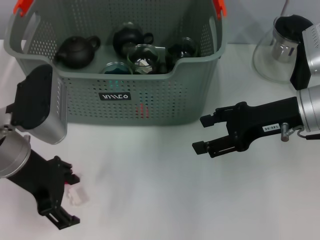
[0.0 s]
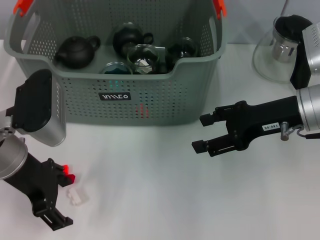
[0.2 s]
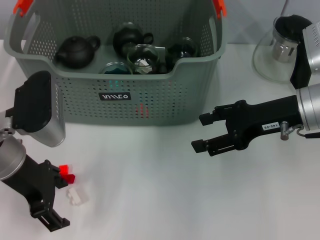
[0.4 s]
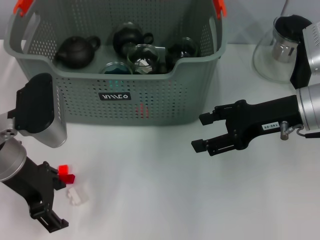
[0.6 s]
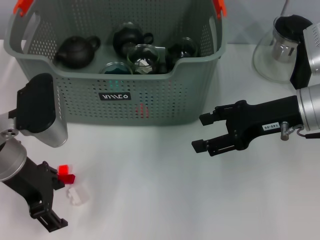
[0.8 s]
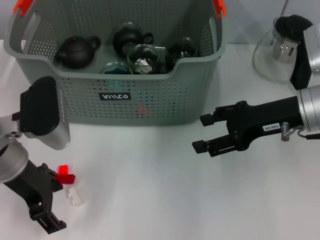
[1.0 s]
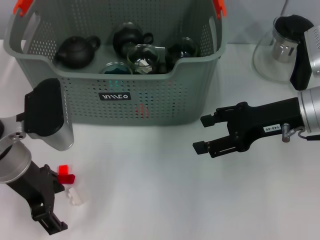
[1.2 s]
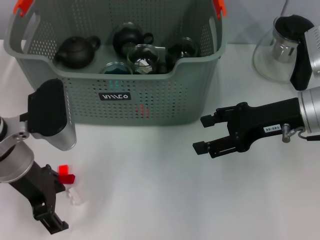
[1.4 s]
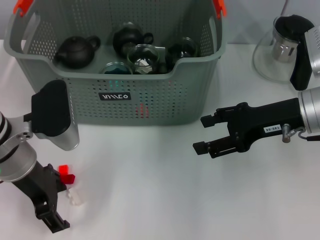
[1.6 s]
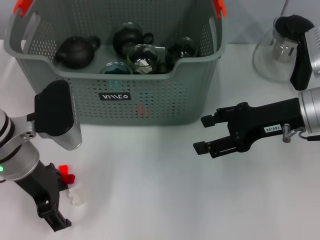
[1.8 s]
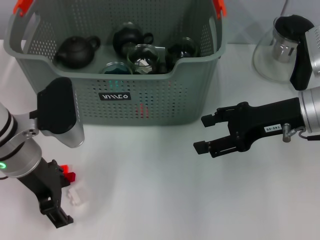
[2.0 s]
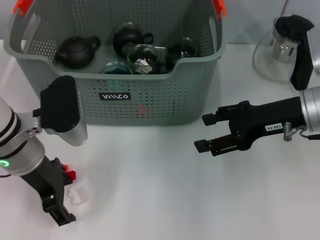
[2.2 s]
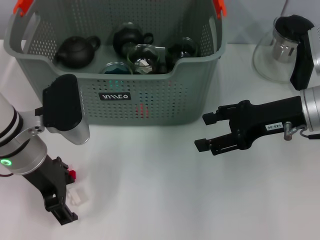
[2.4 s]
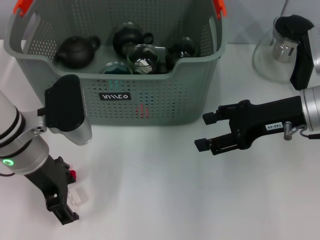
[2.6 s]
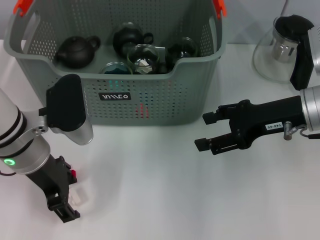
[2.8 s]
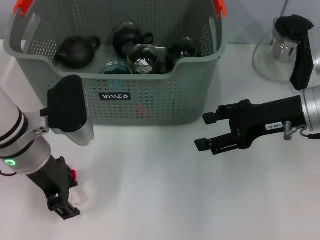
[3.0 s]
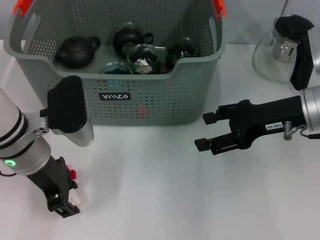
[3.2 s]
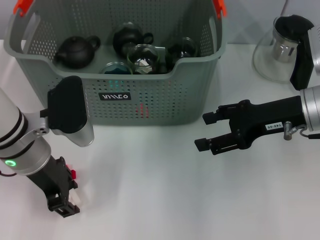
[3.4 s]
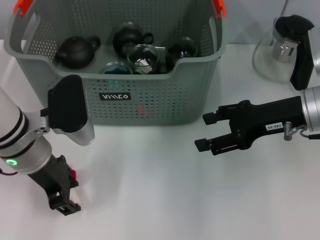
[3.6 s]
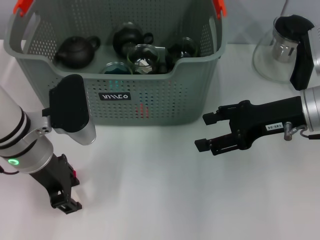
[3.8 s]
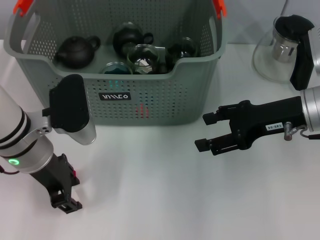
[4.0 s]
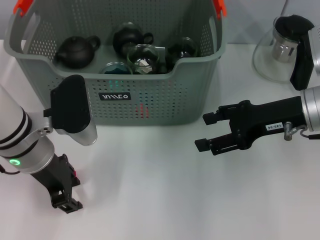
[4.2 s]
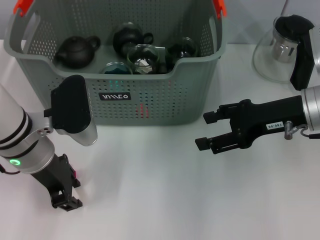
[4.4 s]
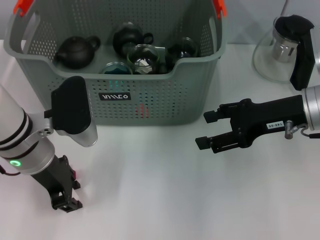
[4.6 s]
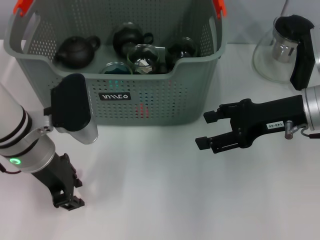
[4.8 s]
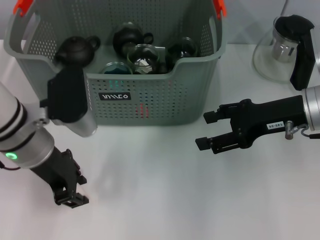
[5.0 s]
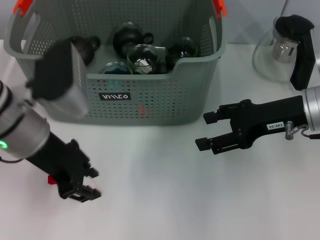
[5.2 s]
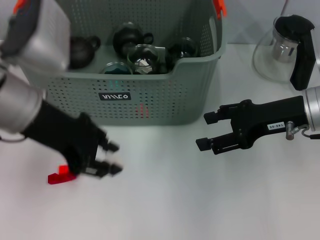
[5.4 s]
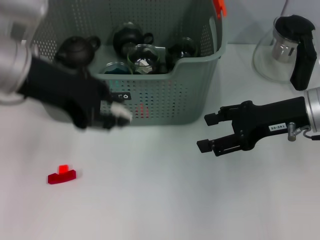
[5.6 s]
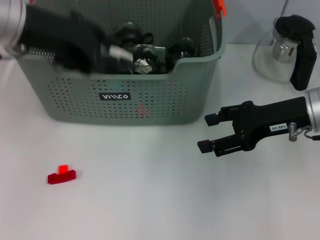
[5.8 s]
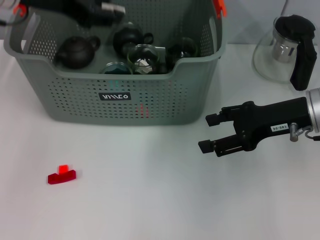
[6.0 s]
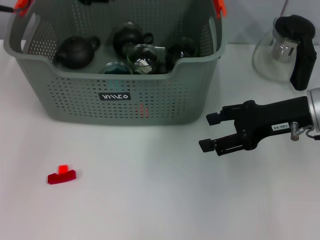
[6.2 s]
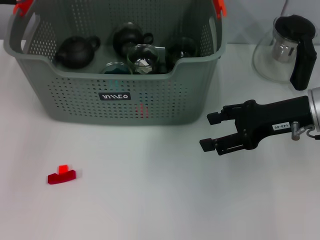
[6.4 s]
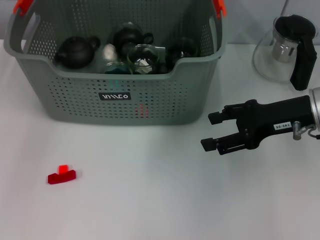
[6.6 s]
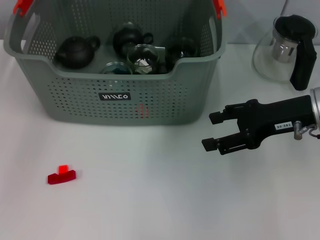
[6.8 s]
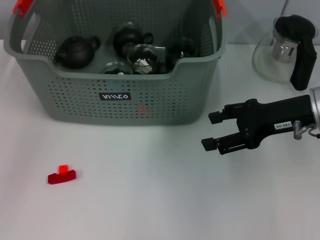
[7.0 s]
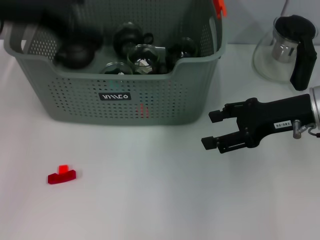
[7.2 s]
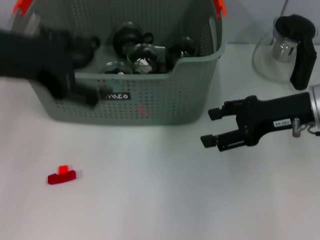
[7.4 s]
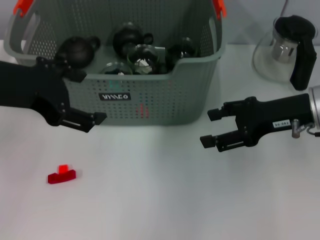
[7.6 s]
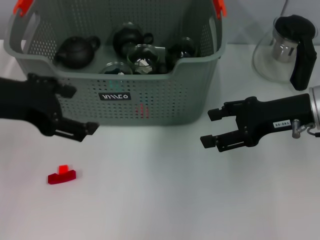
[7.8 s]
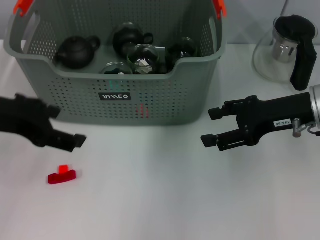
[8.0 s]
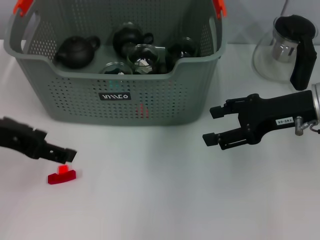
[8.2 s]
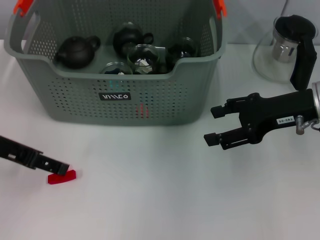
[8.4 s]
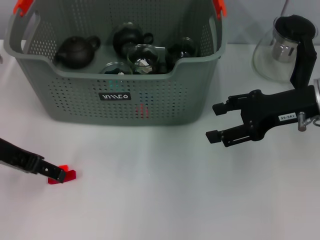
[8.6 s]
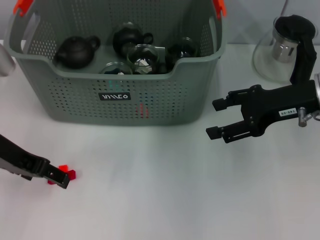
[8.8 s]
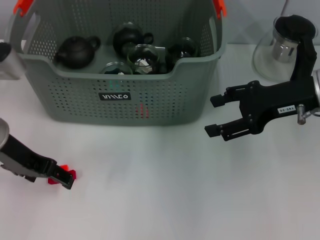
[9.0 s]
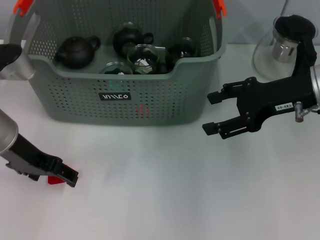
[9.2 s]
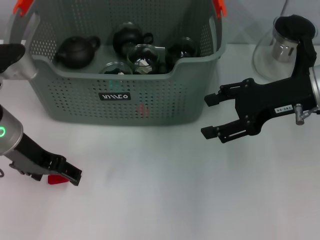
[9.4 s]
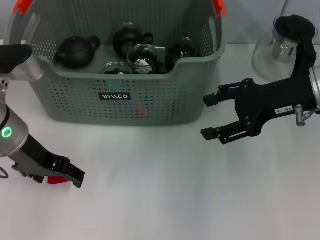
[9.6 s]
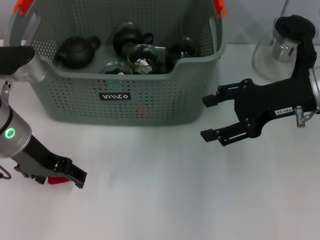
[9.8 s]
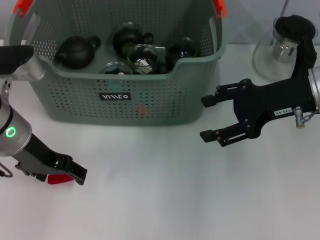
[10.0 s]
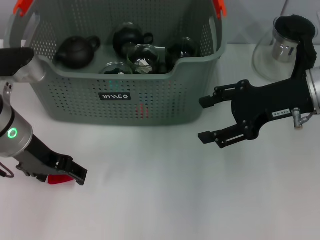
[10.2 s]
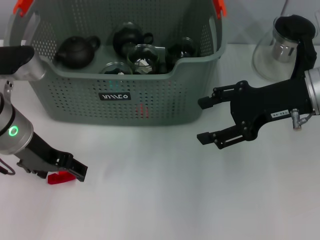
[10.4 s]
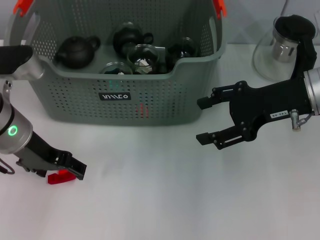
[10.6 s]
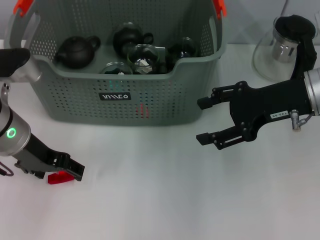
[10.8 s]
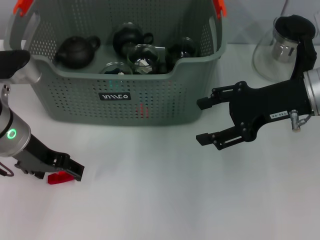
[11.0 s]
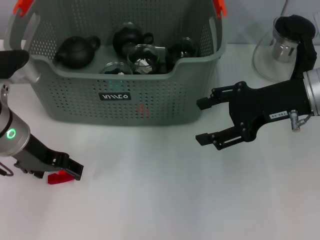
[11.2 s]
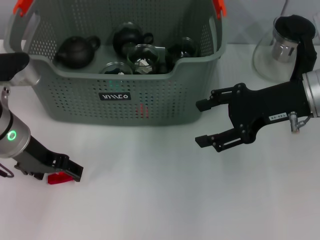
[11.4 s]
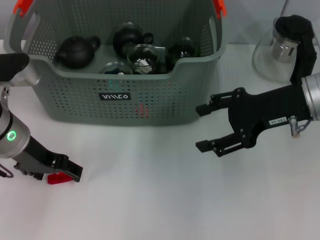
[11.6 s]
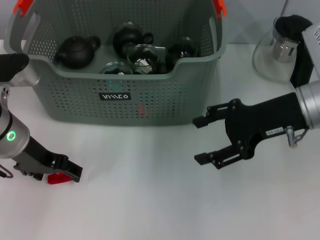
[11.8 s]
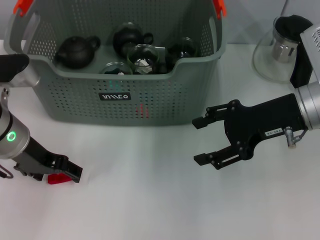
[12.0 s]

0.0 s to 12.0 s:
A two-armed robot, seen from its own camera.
Task of the whole recording: pick up the teacup on the table and place it into the storage bin, pick up the block on the table and place it into the storage bin.
Step, 0.0 to 4.4 s: Grasp the white block with left gripper.
Step, 4.8 to 6.6 s: Place the white block in the storage box with left gripper.
0.0 to 3.0 s: The grippers make only small movements.
3.0 to 4.4 s: Both grippers stay about where they are.
4.4 to 6.0 s: The left gripper shifts approximately 20 cm upward and forward.
6.0 to 7.6 s: The left gripper is displaced backward by approximately 10 cm, and opens.
7.6 to 9.0 s: The left gripper goes approximately 10 cm downward.
9.0 to 12.0 s: There are only small adjustments of the grippers.

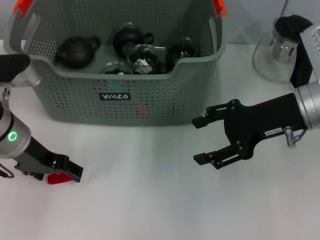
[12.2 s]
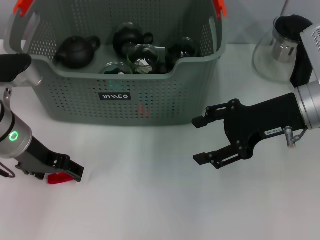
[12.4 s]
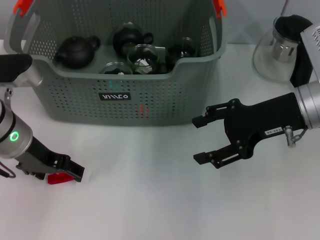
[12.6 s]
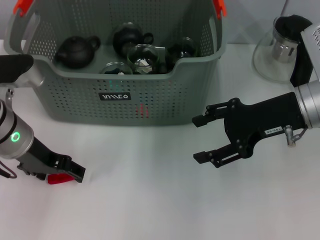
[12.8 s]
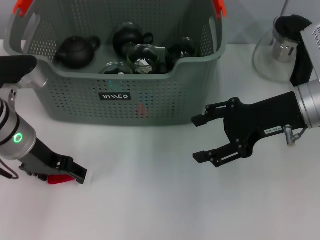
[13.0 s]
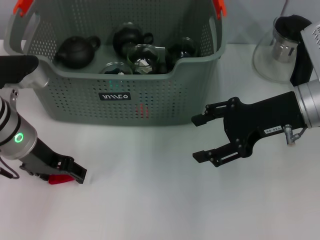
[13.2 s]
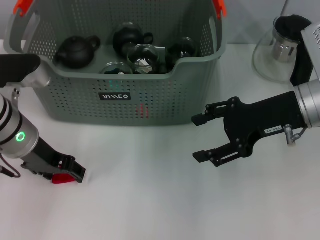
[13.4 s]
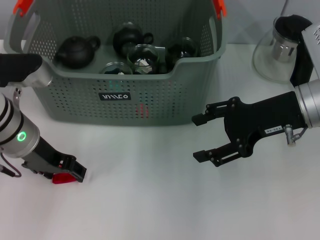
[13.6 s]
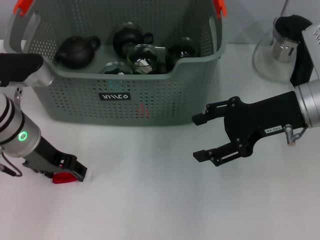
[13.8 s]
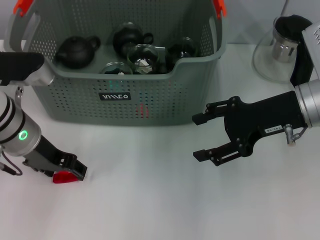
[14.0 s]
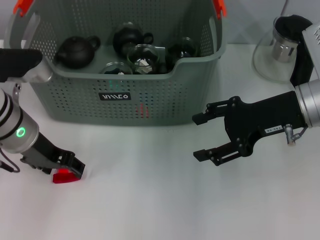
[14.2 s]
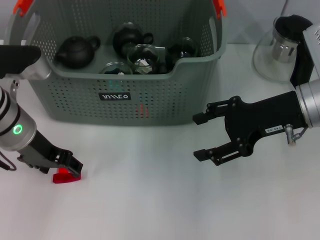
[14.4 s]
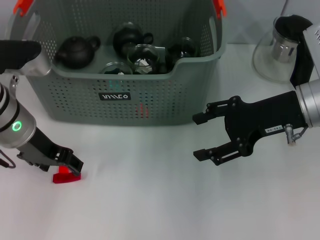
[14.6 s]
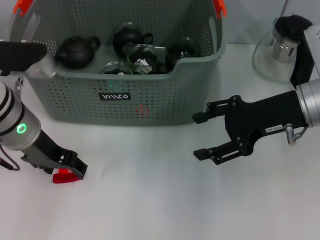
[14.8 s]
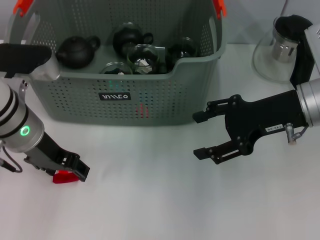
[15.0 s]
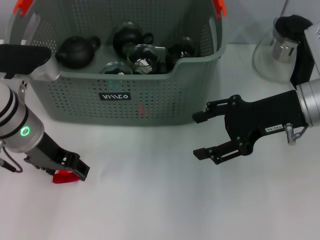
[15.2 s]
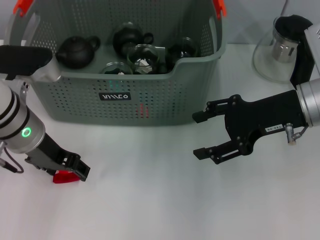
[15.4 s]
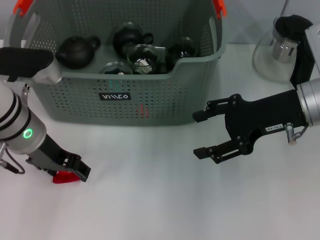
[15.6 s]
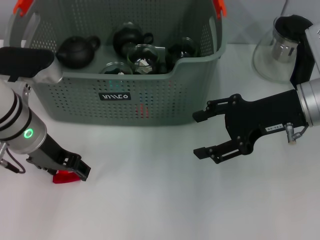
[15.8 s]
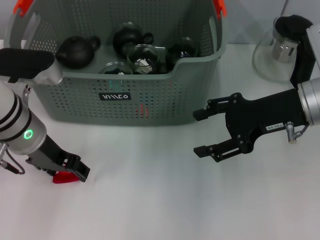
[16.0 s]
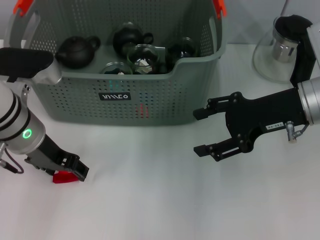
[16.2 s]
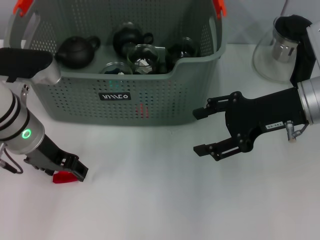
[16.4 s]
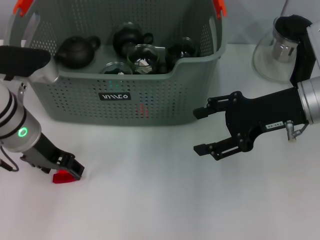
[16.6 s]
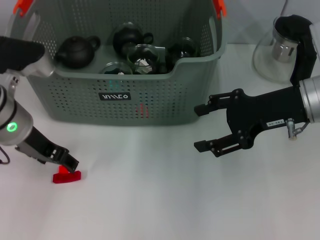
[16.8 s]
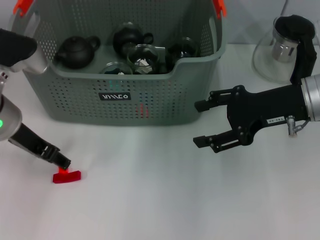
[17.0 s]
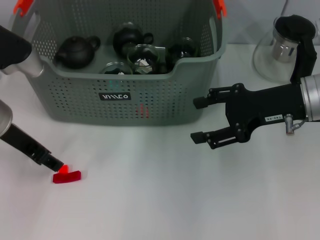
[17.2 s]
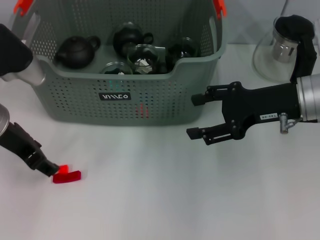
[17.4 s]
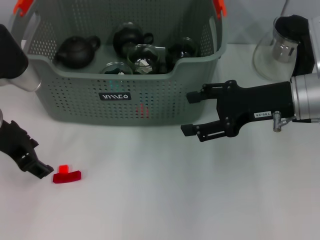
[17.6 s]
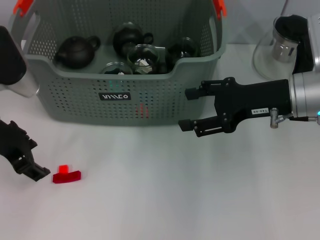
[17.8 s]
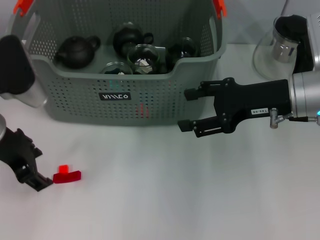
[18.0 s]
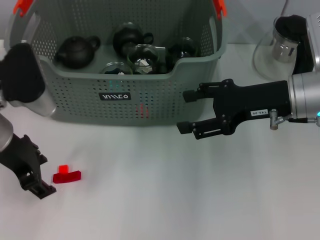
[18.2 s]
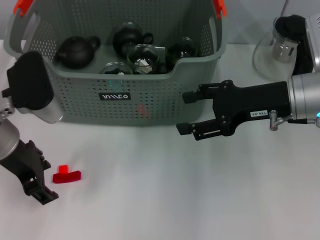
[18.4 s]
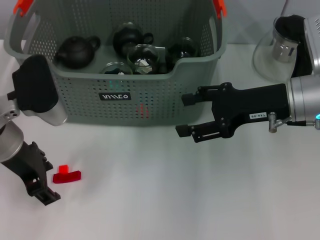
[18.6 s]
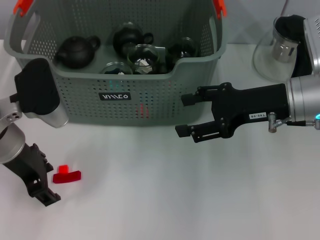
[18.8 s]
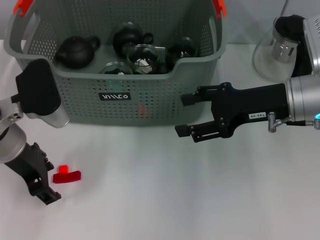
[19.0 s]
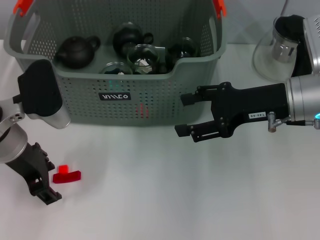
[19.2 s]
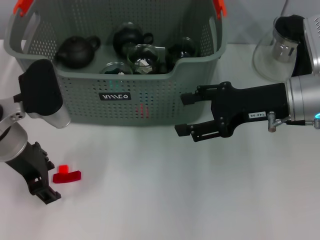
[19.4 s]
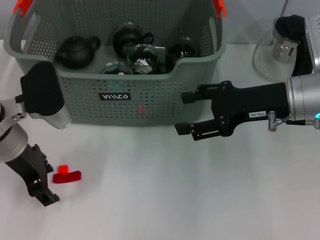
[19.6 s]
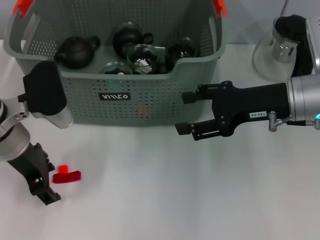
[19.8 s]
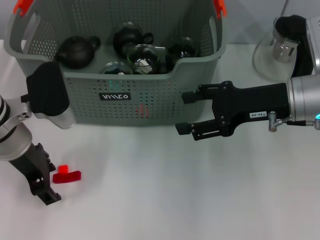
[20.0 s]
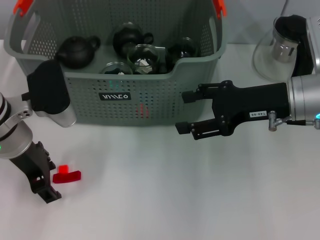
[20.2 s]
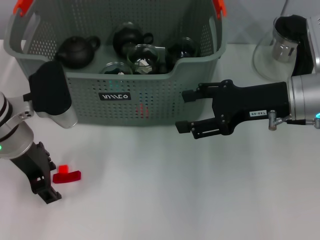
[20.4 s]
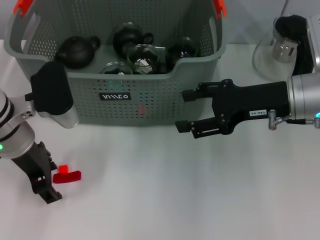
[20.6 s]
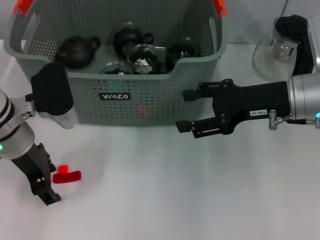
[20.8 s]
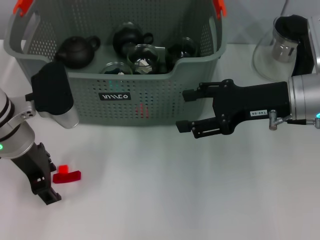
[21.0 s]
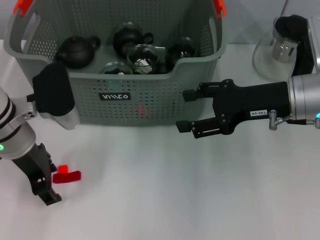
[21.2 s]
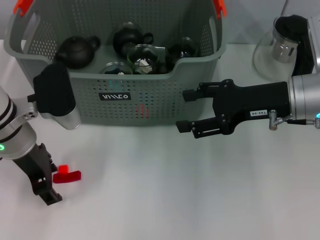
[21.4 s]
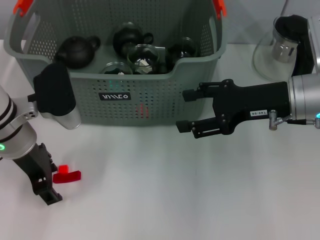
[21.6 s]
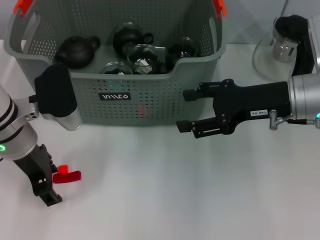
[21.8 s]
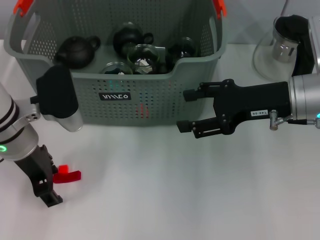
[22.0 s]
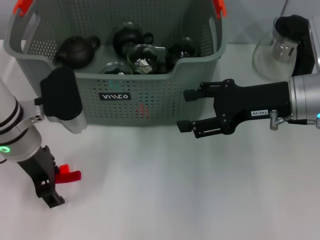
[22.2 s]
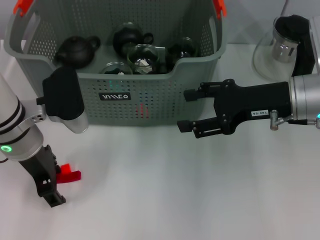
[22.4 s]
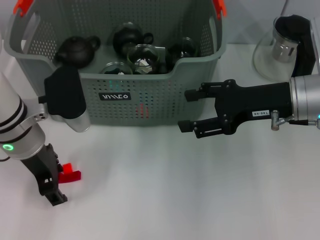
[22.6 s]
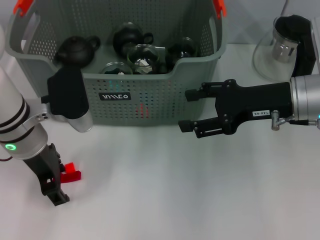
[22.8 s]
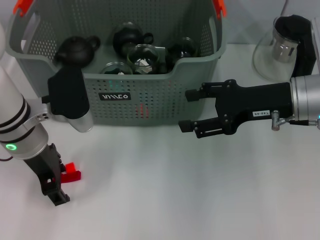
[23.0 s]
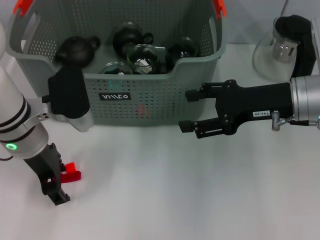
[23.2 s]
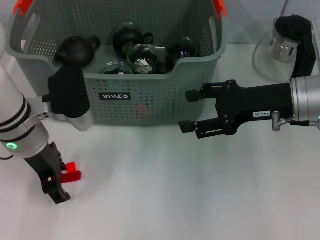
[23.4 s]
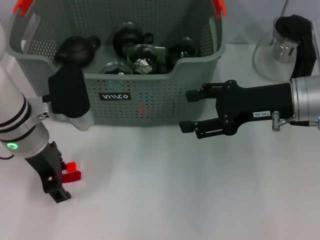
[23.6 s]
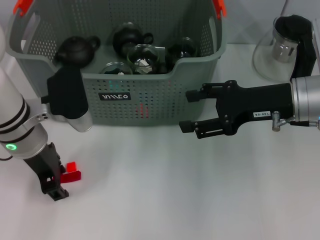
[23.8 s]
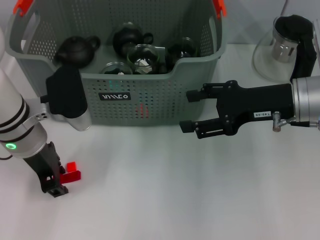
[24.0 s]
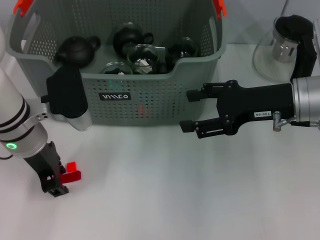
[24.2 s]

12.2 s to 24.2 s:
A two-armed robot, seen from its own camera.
Task of the whole recording: pick up the teacup on the table and place it into the storage bin, pick up the block on the table and place it into the storage bin.
12.2 to 13.8 s: Neither gripper changes place.
13.8 to 15.2 s: The grippers stay close to where they were, moving slightly.
15.2 to 16.6 s: Both grippers stay about where they are.
18.2 to 19.8 s: The grippers move only a little.
19.8 to 21.2 s: The two grippers keep their place.
21.2 to 22.6 s: Both grippers stay about where they are.
22.6 to 24.2 s: The two grippers keep their place.
